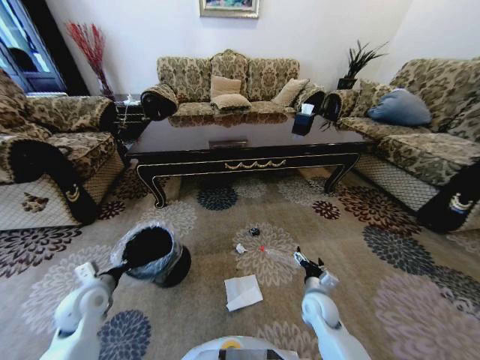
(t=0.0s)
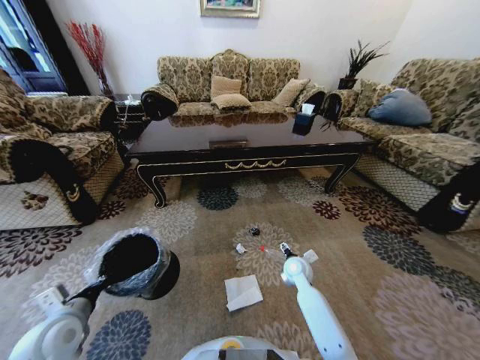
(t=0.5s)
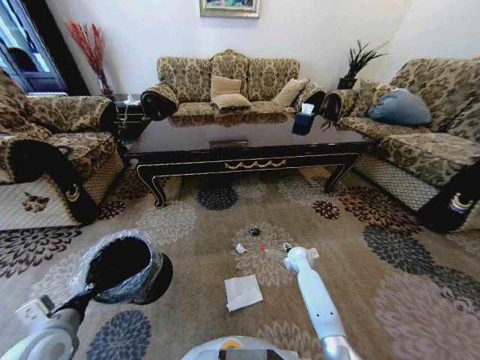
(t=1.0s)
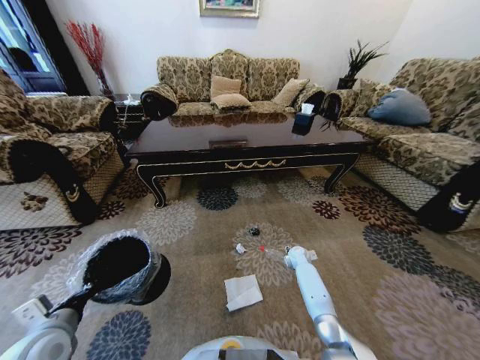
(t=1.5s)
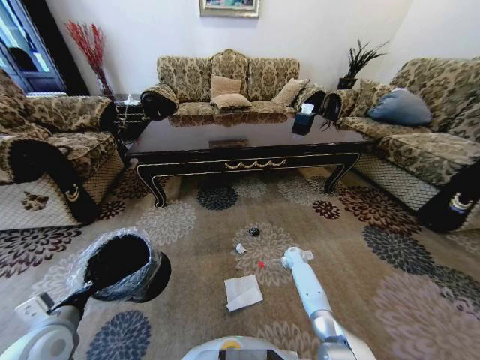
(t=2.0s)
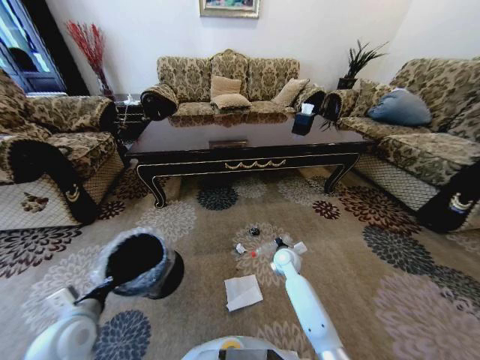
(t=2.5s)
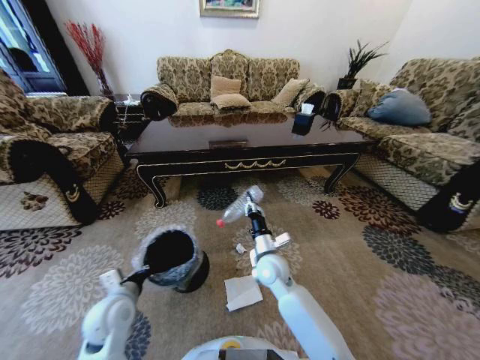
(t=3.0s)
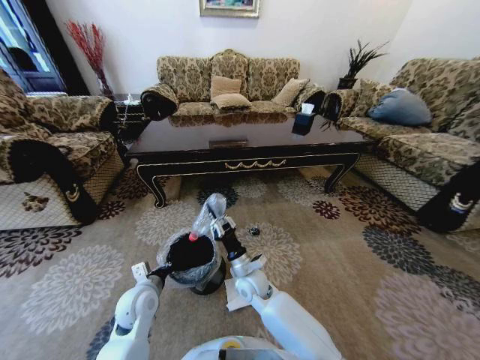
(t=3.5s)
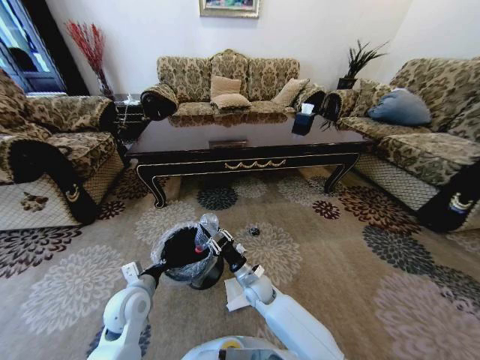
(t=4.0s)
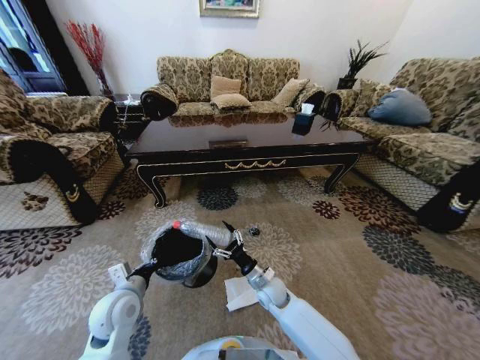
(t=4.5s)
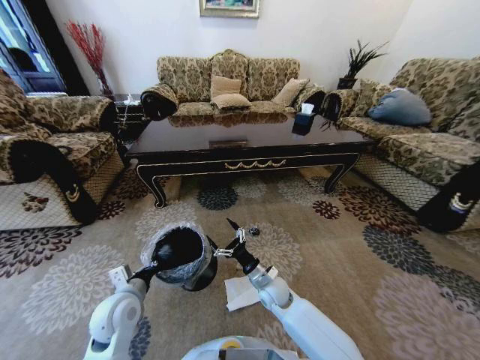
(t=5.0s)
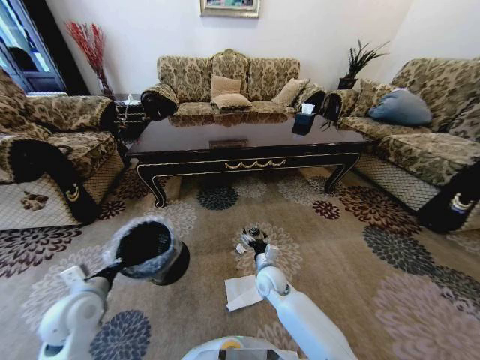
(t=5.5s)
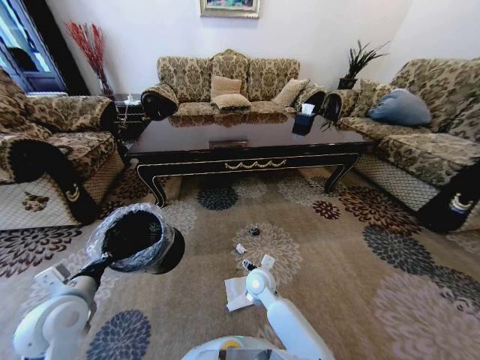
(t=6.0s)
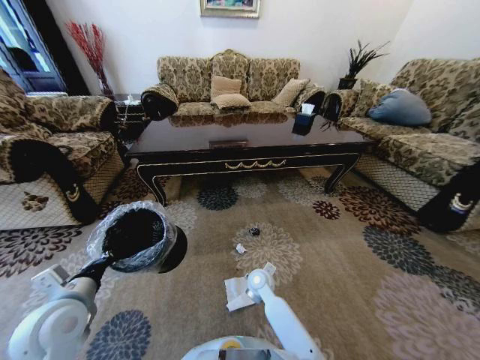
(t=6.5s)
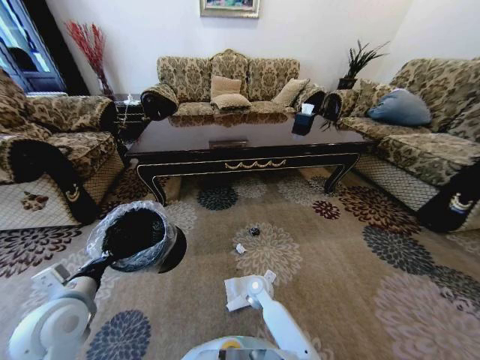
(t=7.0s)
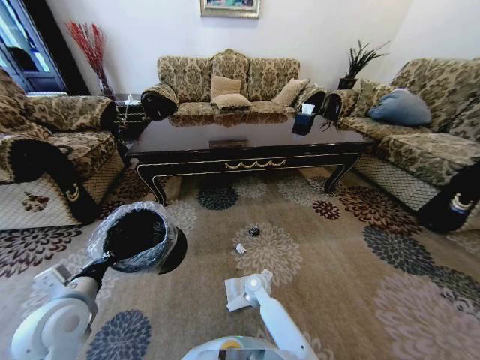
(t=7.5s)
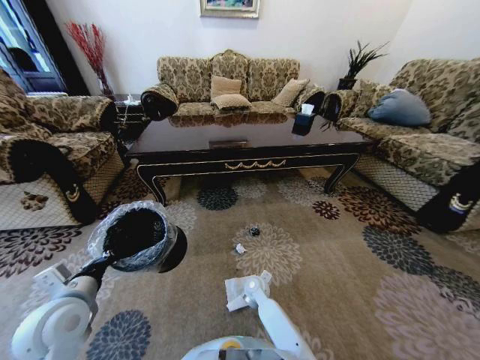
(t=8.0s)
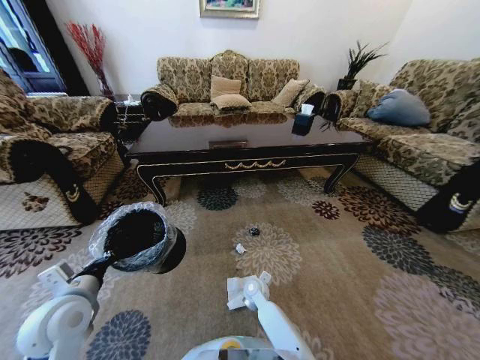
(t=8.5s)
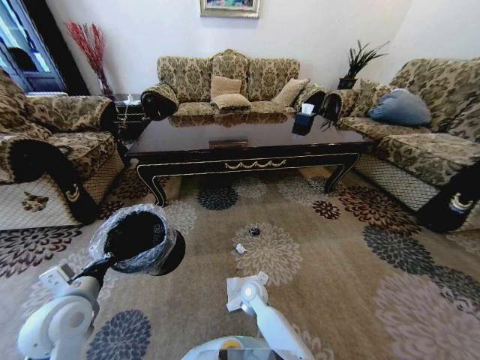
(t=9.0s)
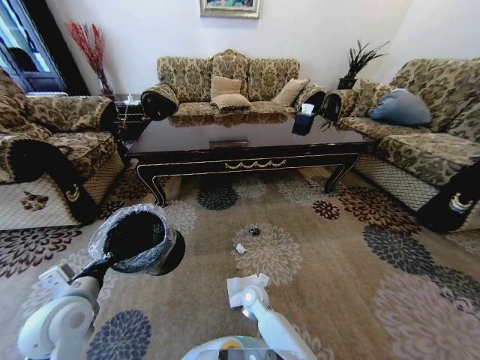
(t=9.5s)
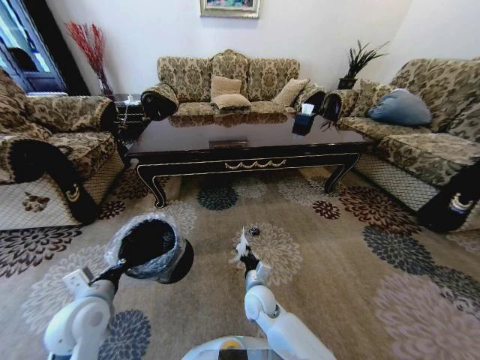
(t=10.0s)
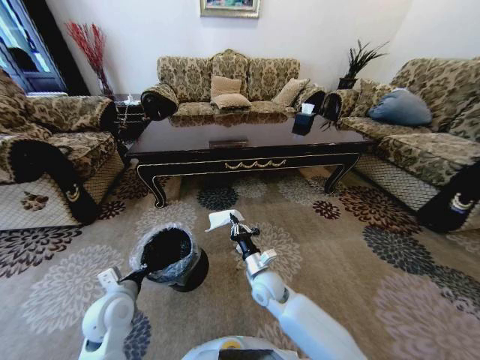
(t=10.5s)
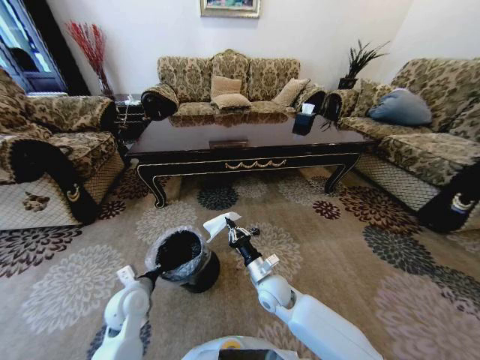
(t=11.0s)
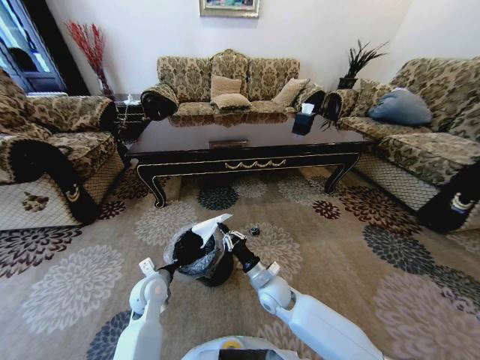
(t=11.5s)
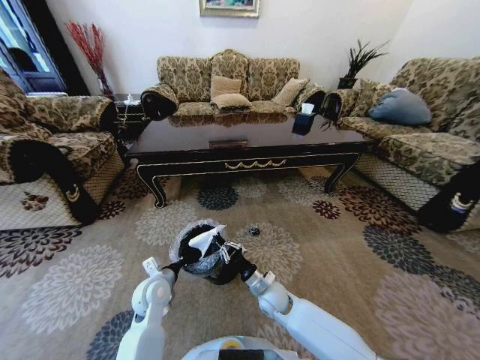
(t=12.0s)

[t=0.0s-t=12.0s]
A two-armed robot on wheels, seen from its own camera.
Task of the whole recording: Move to the front of the table and pick up the trash from the floor, then place it into the trash bin.
t=0.0s to t=2.0s: The left gripper shifts approximately 10 cm backward and upward; the right gripper travels forward by approximately 20 cm, and closes its fingers.
t=2.0s to t=4.0s: The right gripper goes approximately 25 cm to the left and backward, and closes. Meanwhile the left gripper is displaced to the right, forward and downward by some 15 cm.
t=4.0s to t=6.0s: The right gripper opens. The left gripper is displaced to the left and upward by about 10 cm.
t=6.0s to t=8.0s: The right gripper moves downward, approximately 10 cm.
t=8.0s to t=10.0s: The right gripper is displaced upward and backward by roughly 10 cm, and closes up.
t=10.0s to t=12.0s: The left gripper goes about 15 cm to the right, downward and forward, while the right gripper ends up approximately 5 cm from where it was.

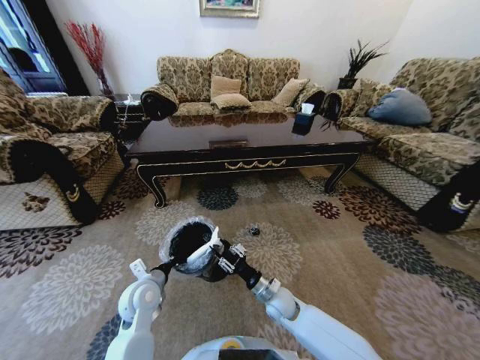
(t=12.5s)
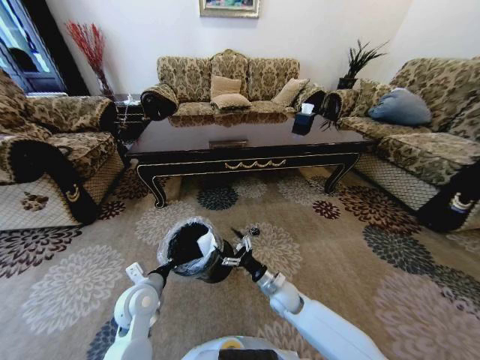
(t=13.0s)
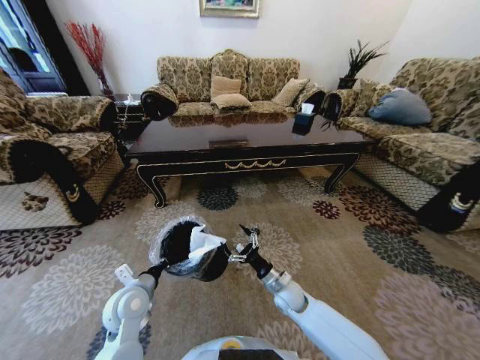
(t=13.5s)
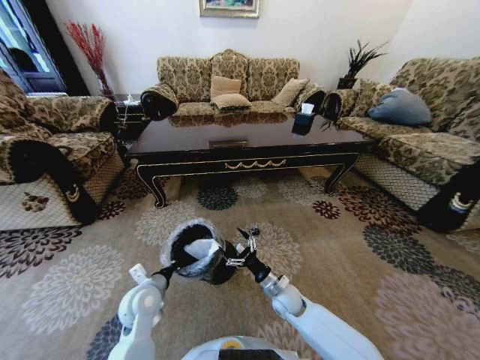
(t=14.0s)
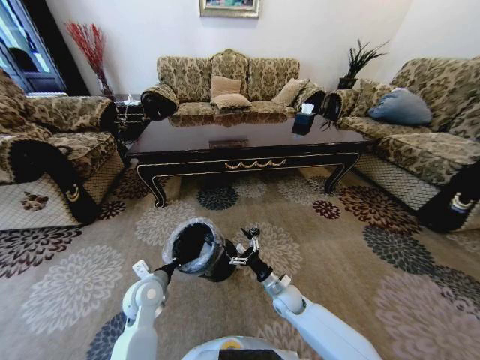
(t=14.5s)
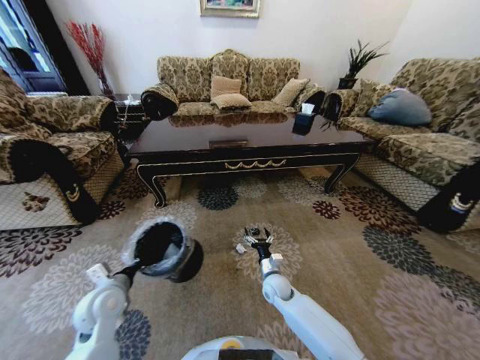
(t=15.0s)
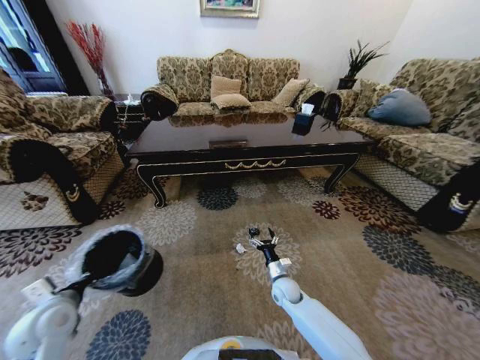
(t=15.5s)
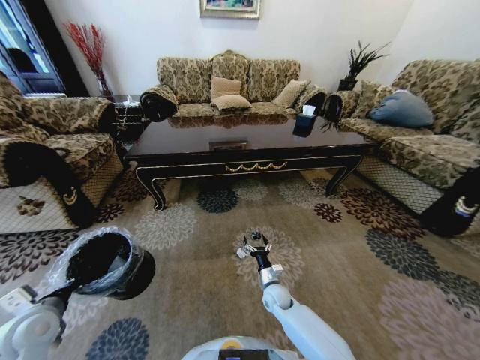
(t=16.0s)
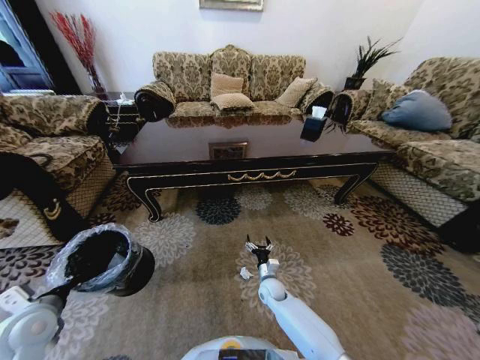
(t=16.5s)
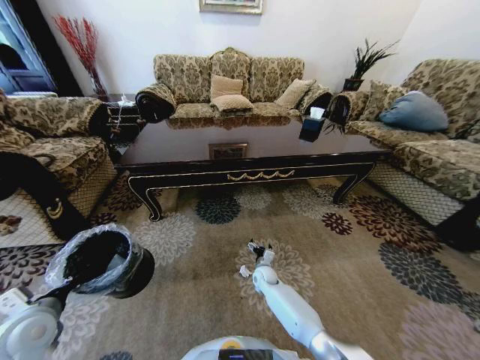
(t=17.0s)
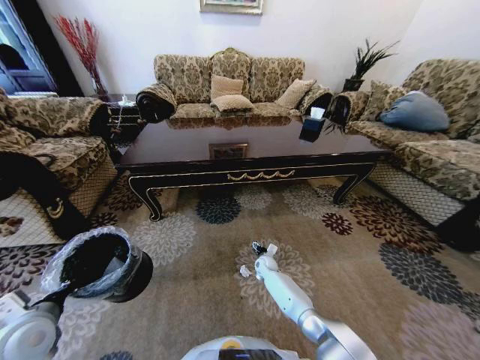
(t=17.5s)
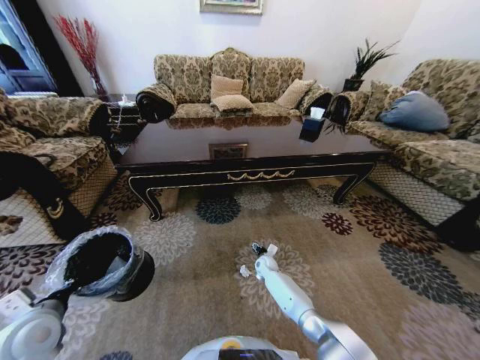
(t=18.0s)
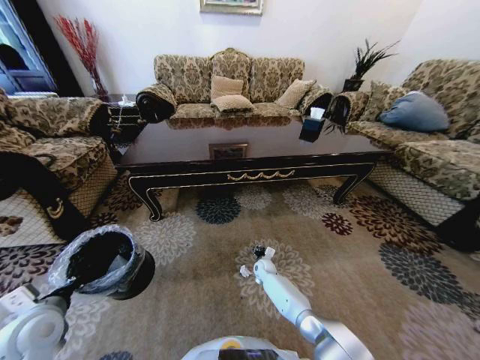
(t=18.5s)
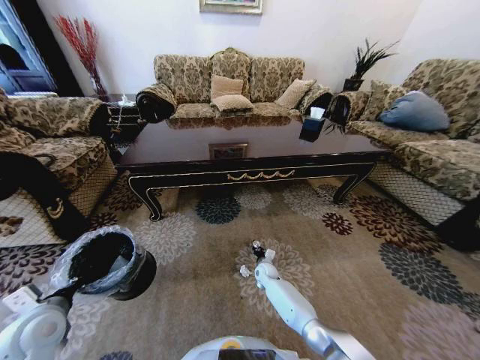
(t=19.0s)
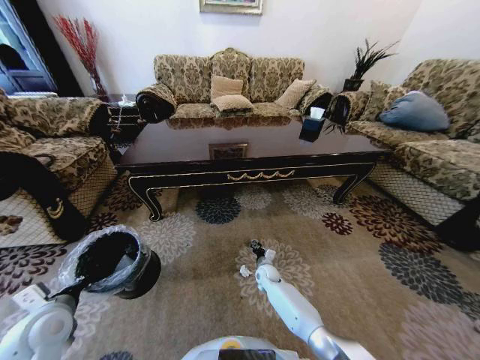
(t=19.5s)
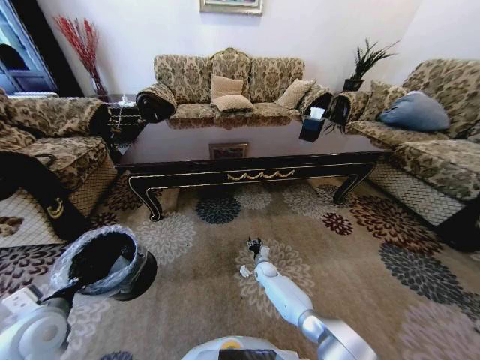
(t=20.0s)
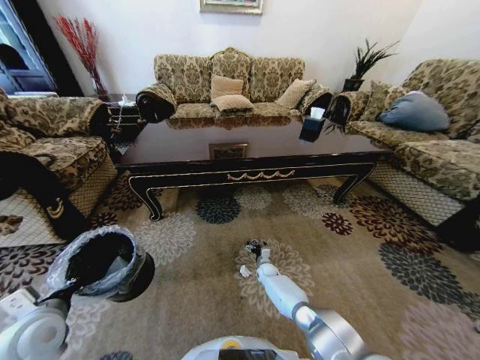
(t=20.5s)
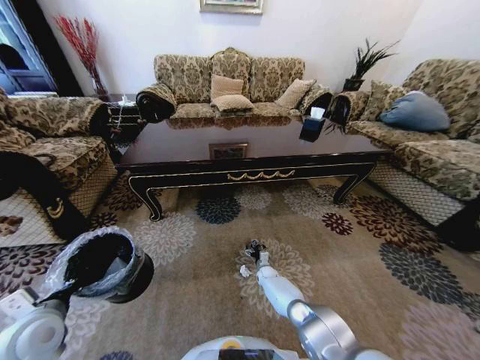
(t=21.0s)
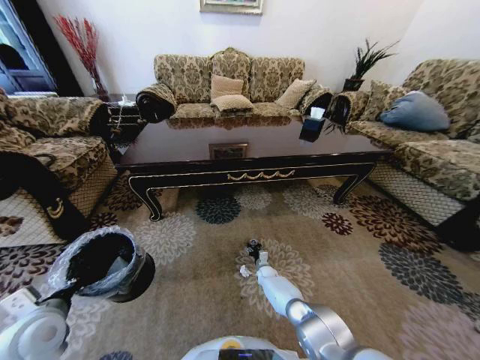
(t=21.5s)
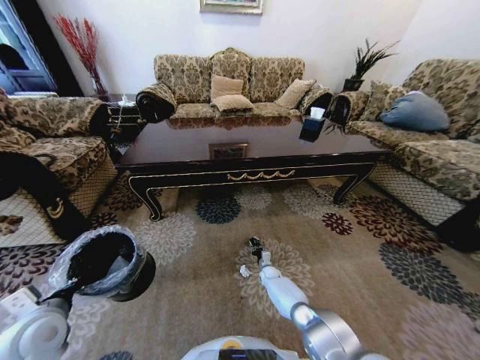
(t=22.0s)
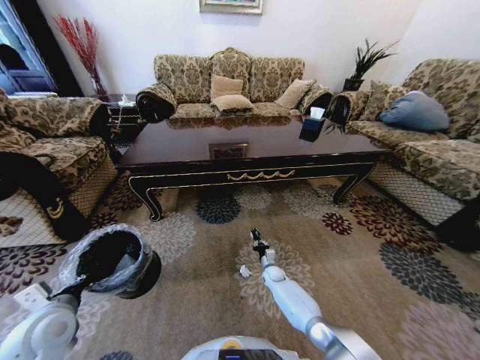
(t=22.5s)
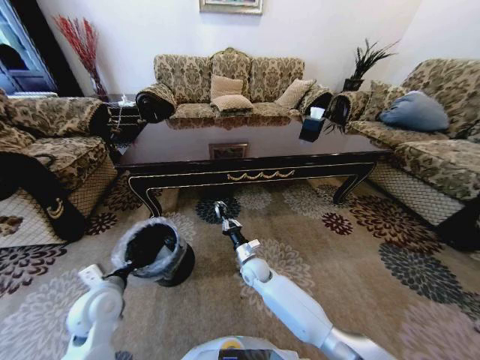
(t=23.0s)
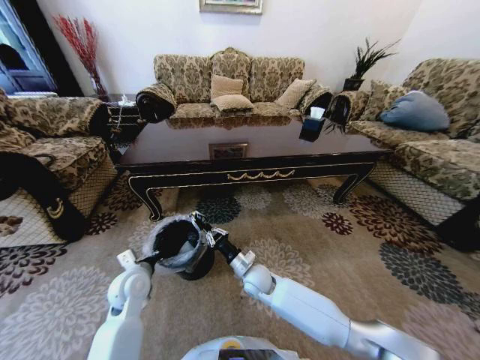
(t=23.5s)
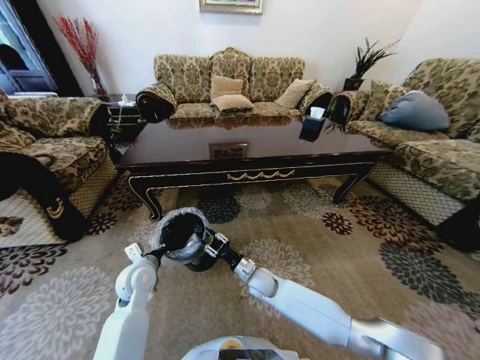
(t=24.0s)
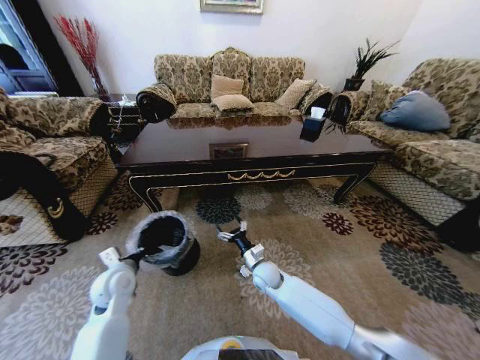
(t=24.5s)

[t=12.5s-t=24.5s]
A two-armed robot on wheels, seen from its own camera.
Task of the whole recording: Move to the front of the table and pick up the trash from the floor, then place it into the trash bin.
t=12.5s to t=14.5s: The right gripper opens.
t=14.5s to t=16.5s: The left gripper heads to the left and backward, covering approximately 20 cm. Meanwhile the right gripper shifts roughly 5 cm downward.
t=16.5s to t=18.5s: The right gripper moves forward, roughly 10 cm, and closes up.
t=18.5s to t=20.5s: The right gripper opens.
t=20.5s to t=22.5s: The right gripper closes.
t=22.5s to t=24.5s: The right gripper goes some 15 cm upward and to the left, and opens, while the left gripper shifts roughly 10 cm forward and to the right.

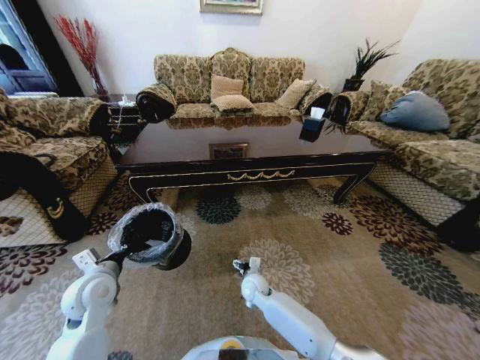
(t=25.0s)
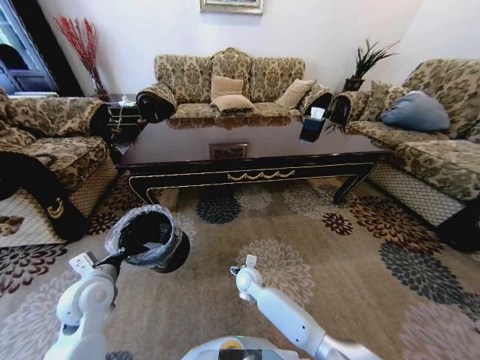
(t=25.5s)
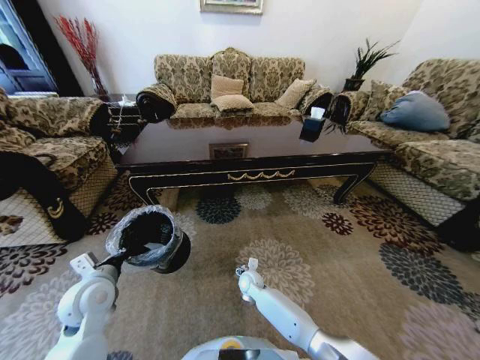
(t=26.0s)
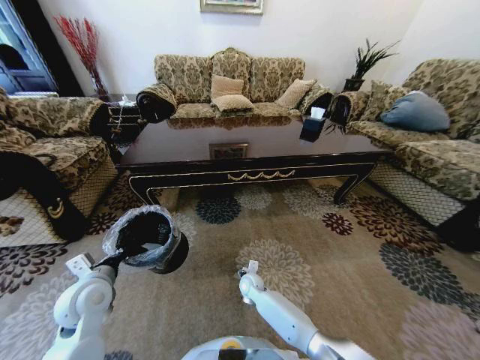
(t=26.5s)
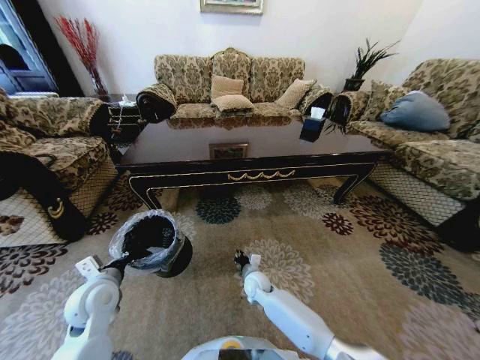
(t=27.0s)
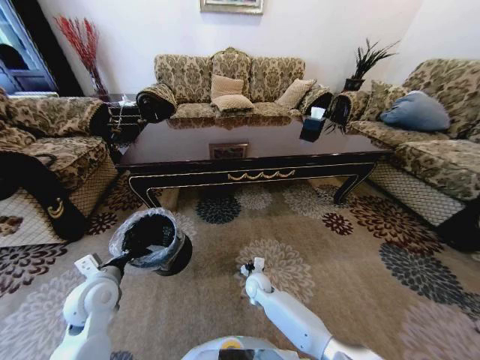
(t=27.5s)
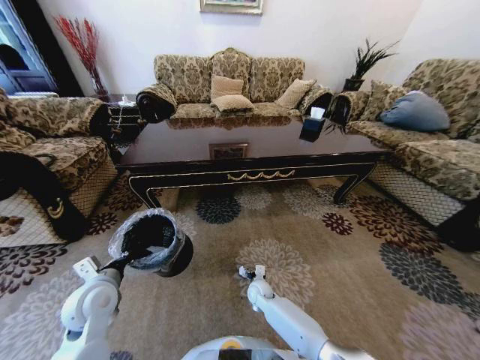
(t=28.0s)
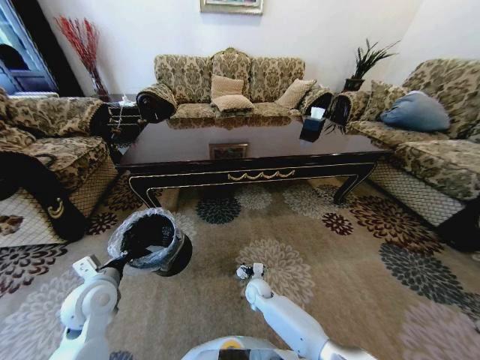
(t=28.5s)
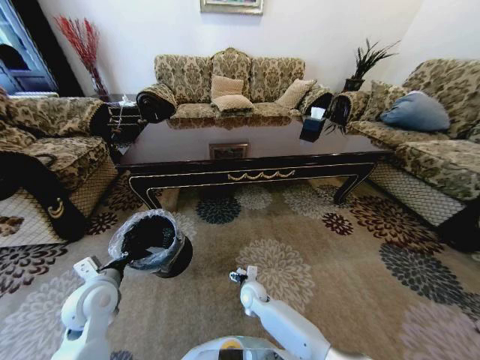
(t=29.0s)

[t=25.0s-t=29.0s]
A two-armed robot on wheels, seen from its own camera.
Task of the whole recording: Move to the front of the table and pick up the trash from the floor, then place it into the trash bin.
t=25.0s to t=27.0s: The right gripper closes.
t=27.0s to t=29.0s: The right gripper opens its fingers.
